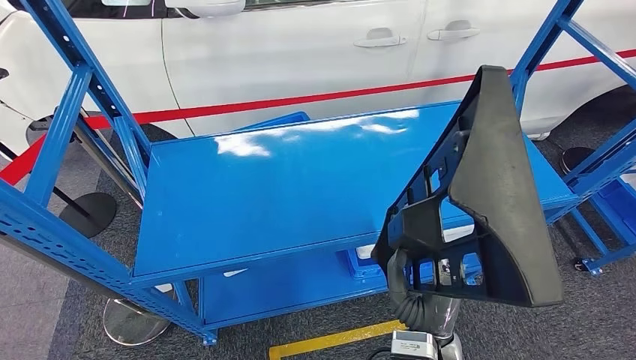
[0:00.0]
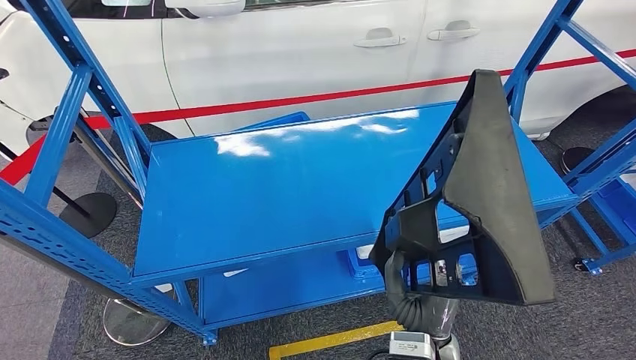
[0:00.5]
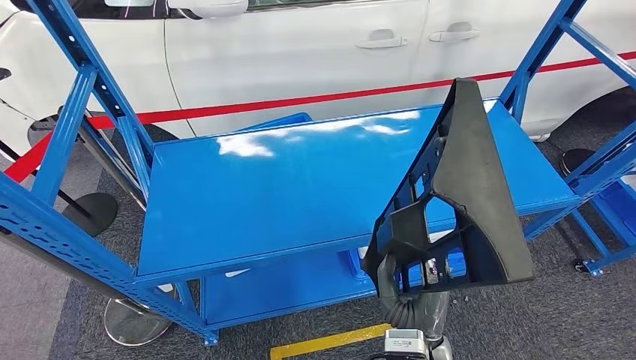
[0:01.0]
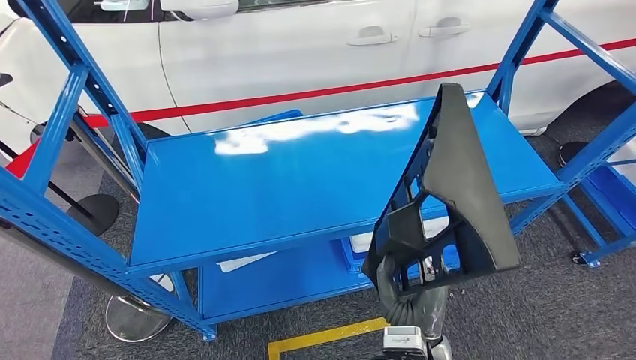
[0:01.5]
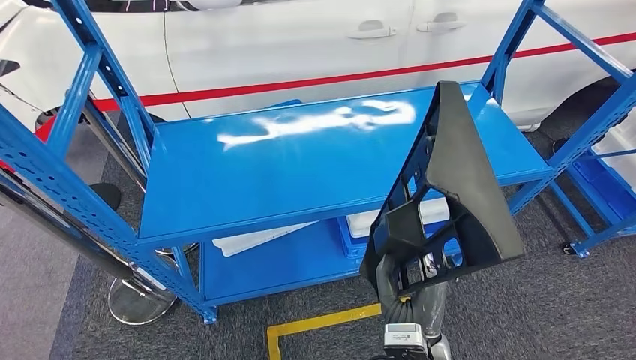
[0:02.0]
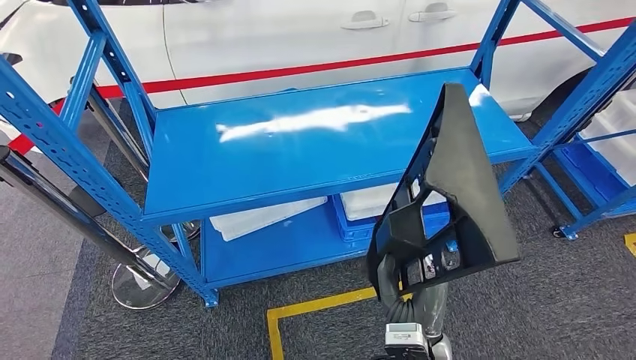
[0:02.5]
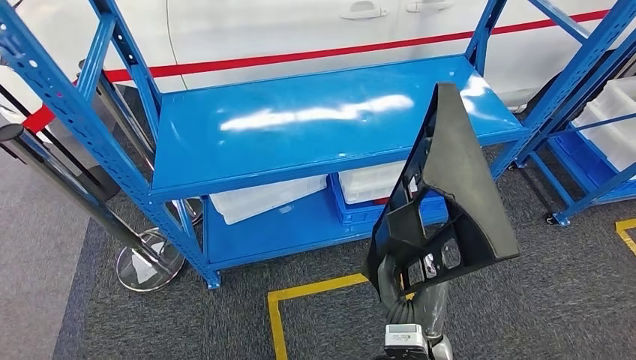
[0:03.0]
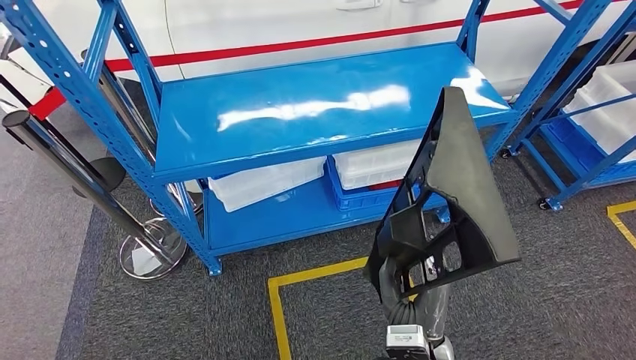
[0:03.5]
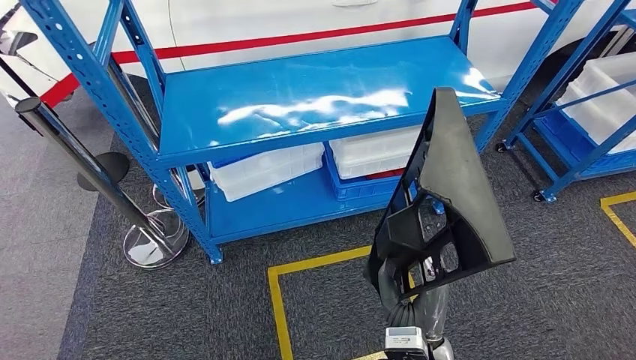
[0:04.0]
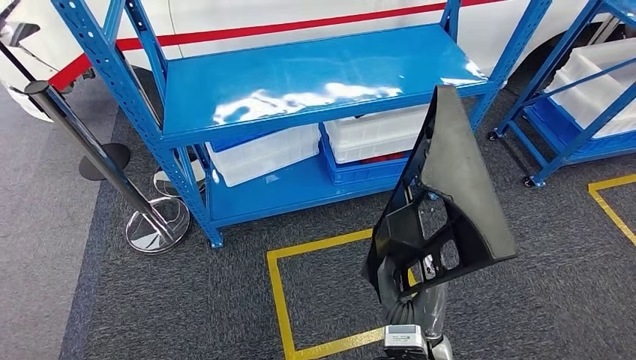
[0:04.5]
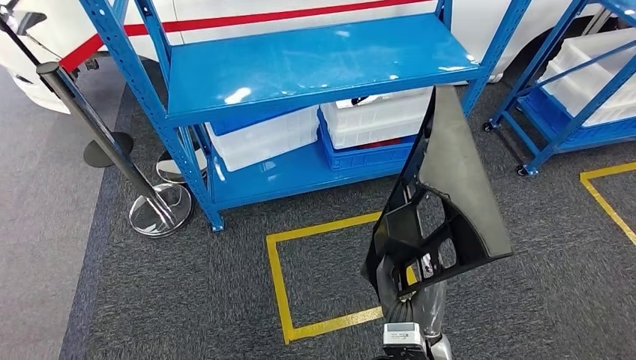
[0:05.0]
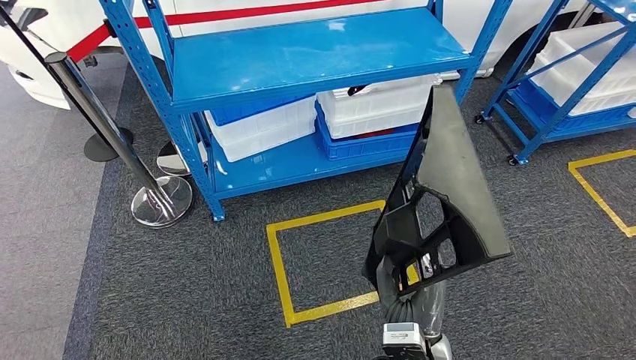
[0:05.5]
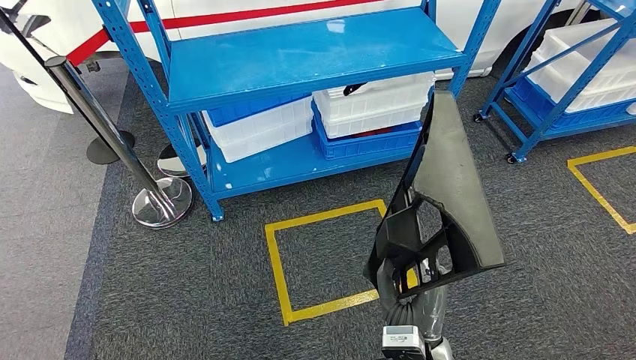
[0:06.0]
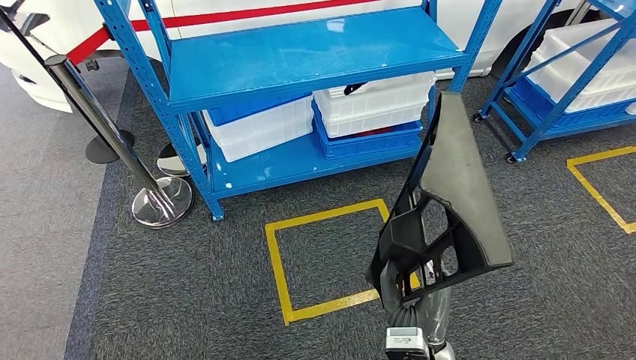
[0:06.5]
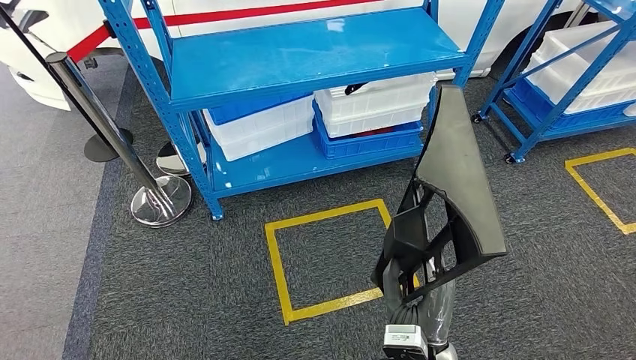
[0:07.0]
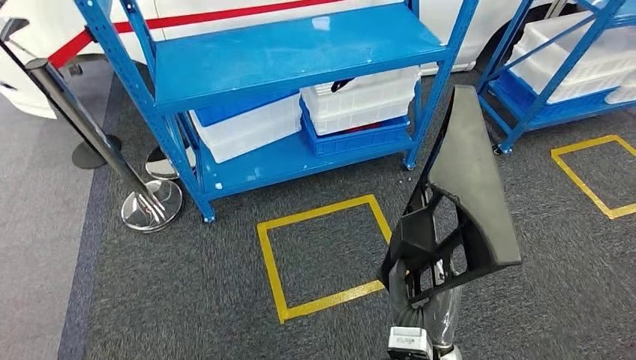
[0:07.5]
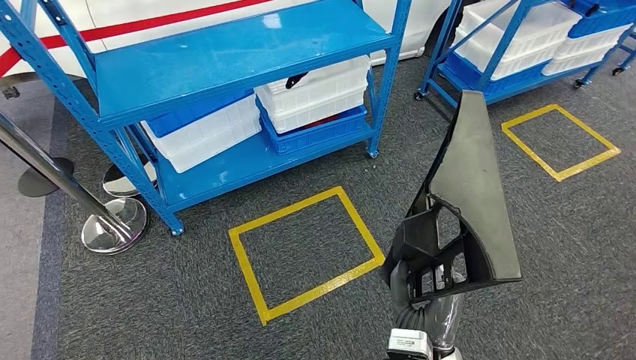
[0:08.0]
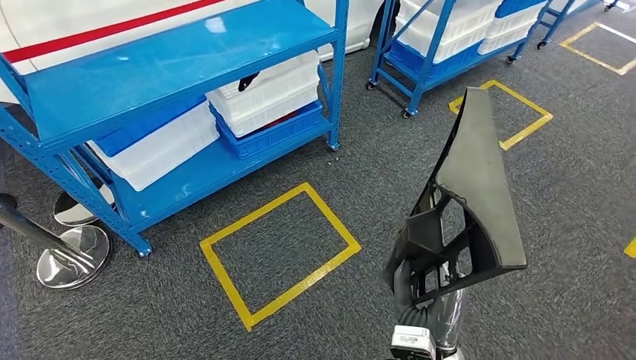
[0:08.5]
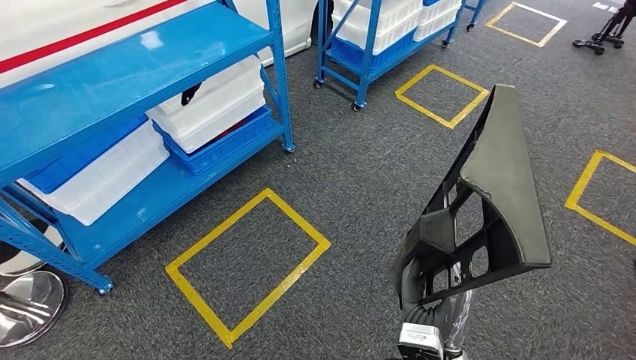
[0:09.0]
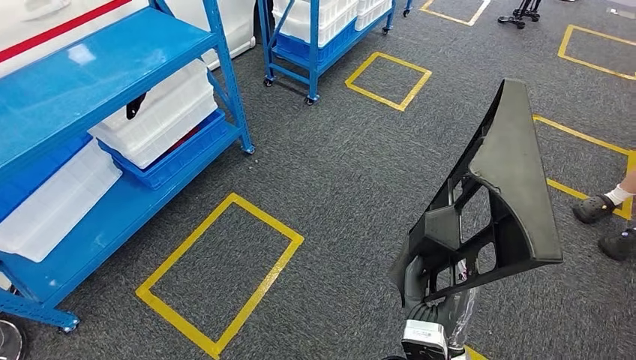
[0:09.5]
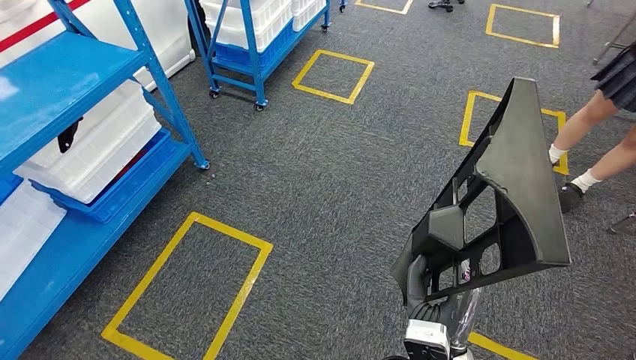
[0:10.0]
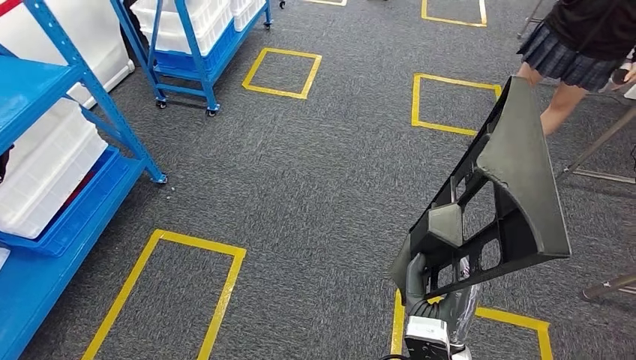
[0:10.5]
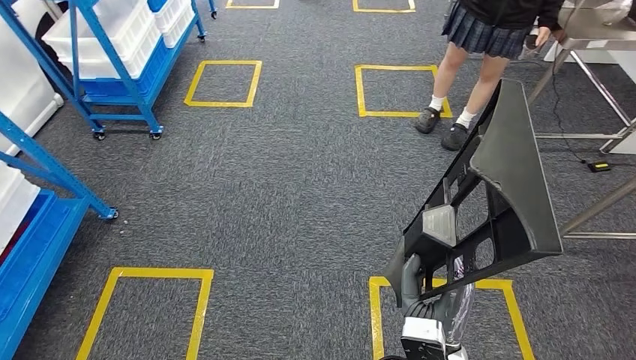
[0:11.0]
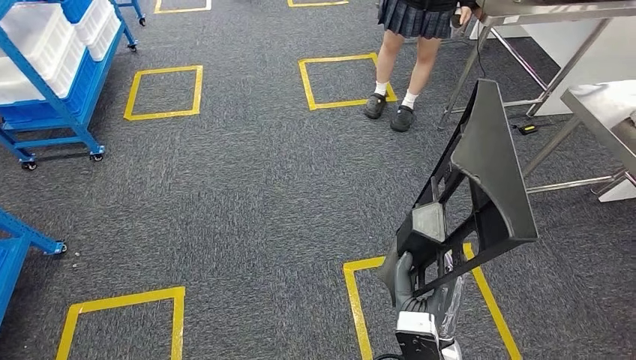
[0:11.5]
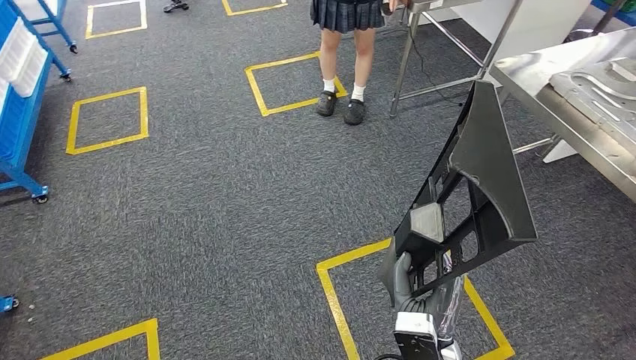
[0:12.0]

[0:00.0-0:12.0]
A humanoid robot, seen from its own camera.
Step, 0:00.0 to 0:03.5: Pick up the large material from the shelf.

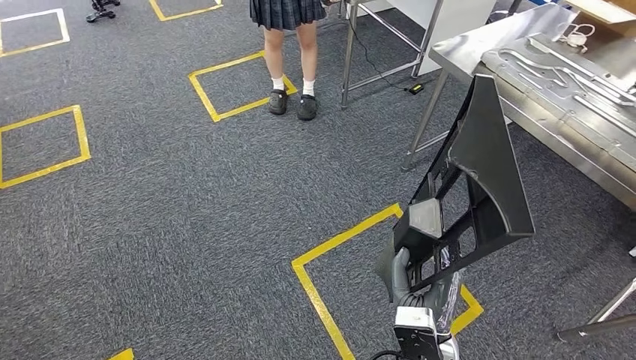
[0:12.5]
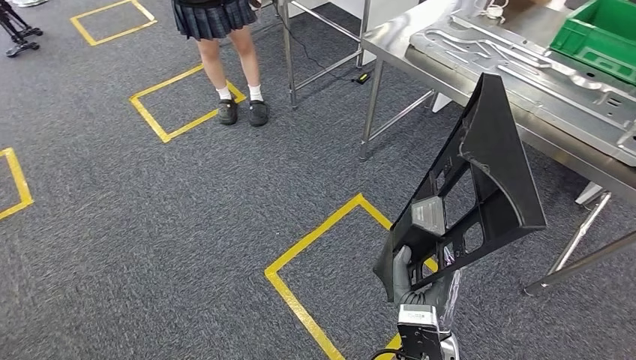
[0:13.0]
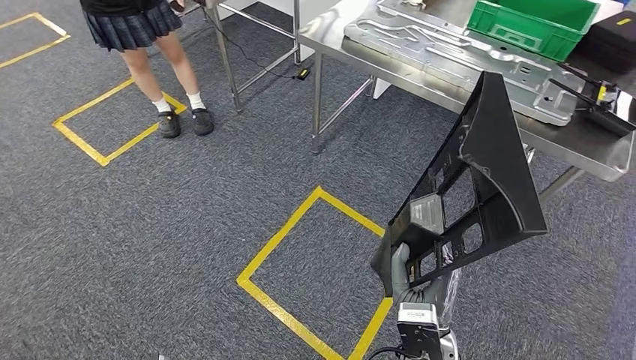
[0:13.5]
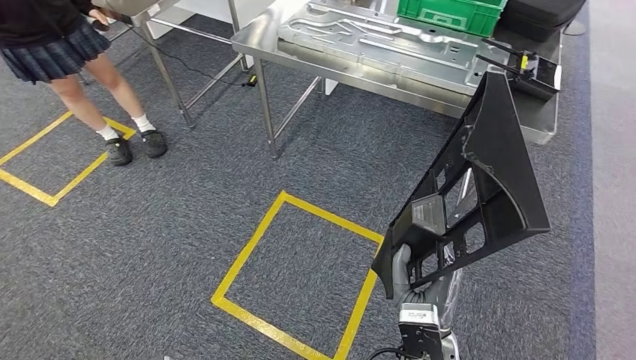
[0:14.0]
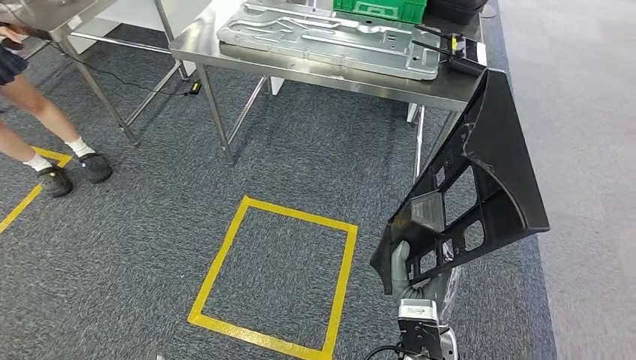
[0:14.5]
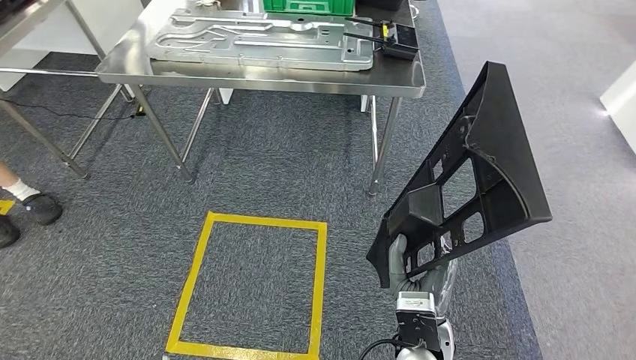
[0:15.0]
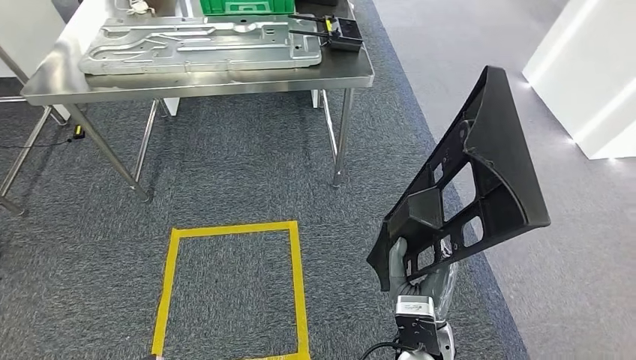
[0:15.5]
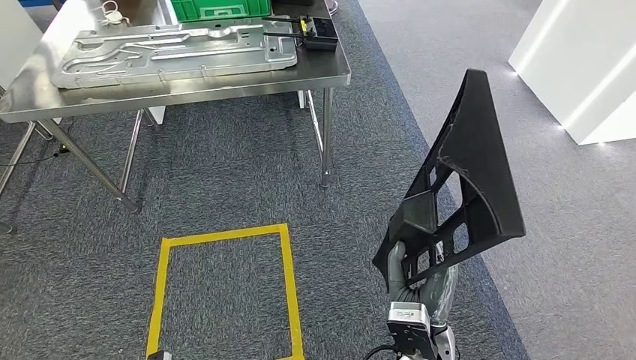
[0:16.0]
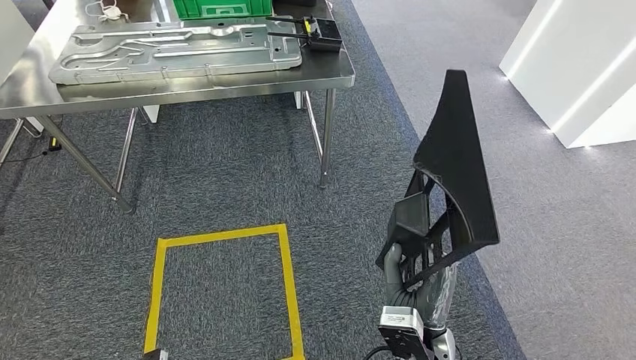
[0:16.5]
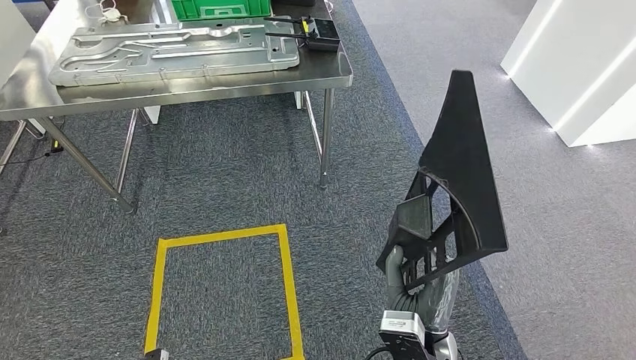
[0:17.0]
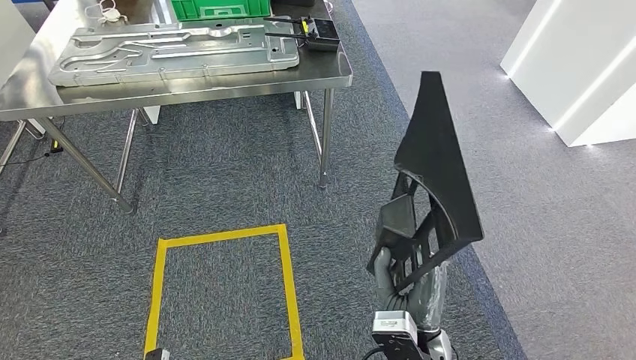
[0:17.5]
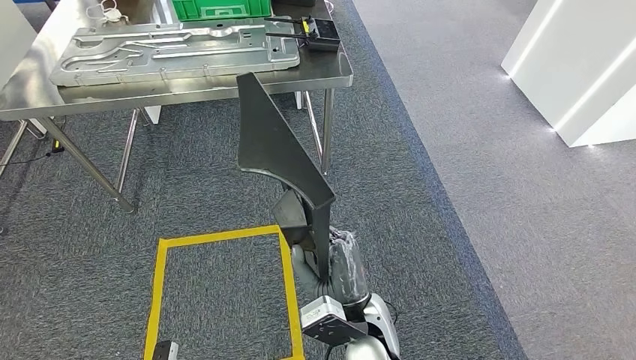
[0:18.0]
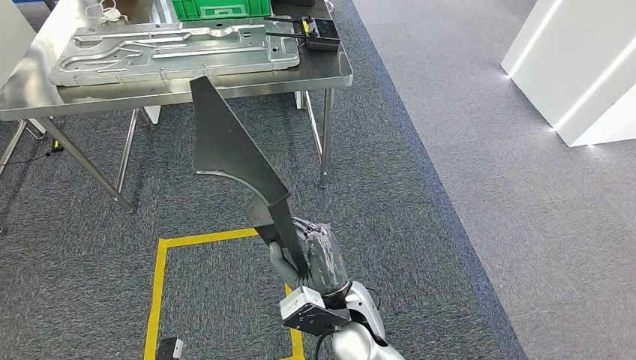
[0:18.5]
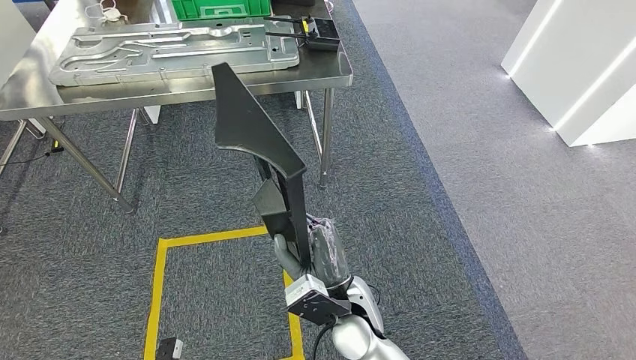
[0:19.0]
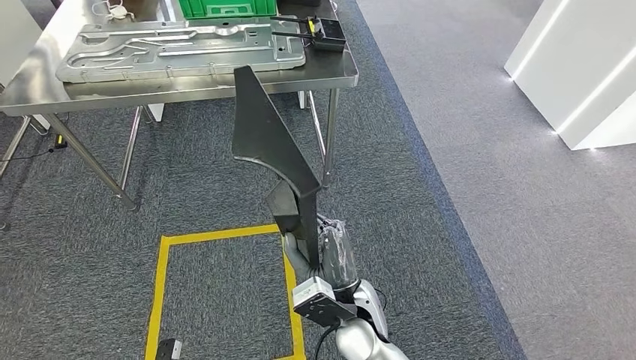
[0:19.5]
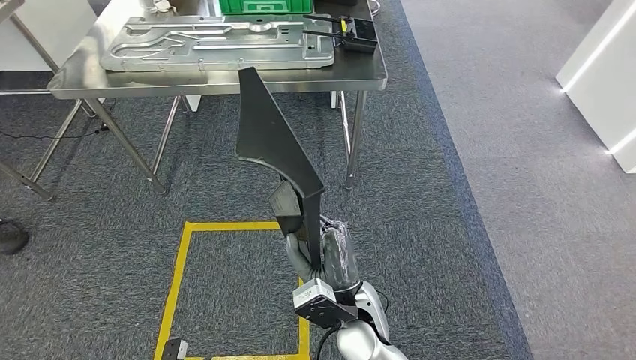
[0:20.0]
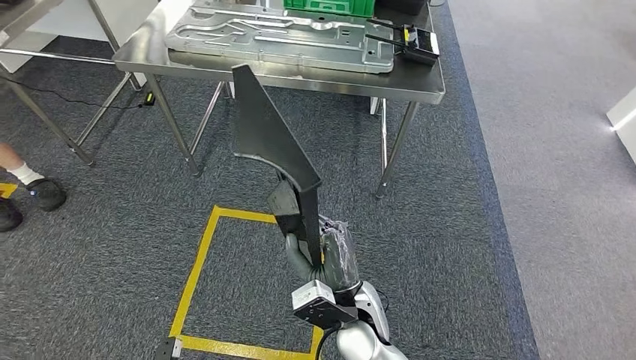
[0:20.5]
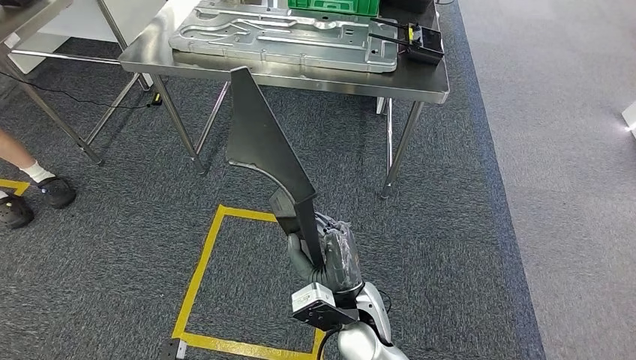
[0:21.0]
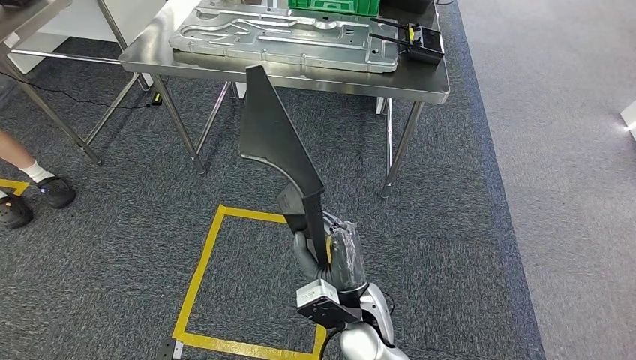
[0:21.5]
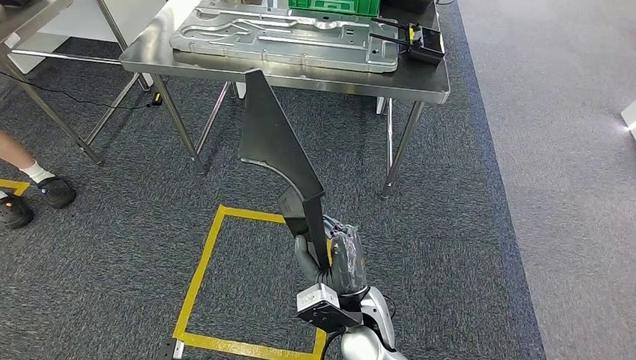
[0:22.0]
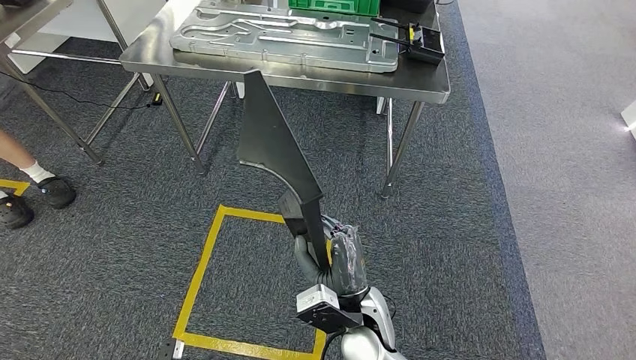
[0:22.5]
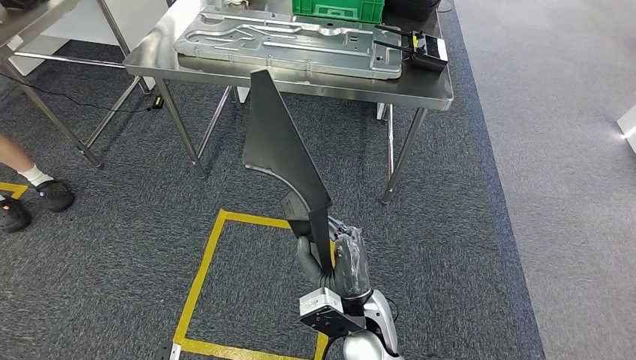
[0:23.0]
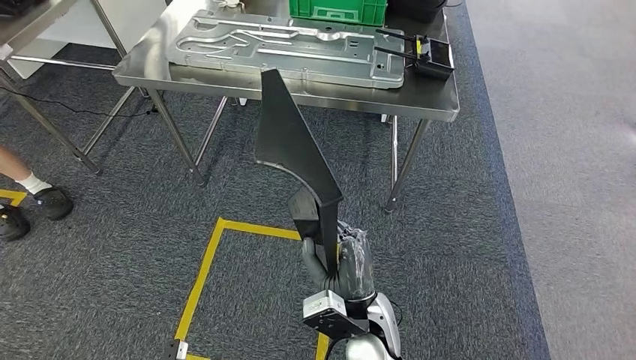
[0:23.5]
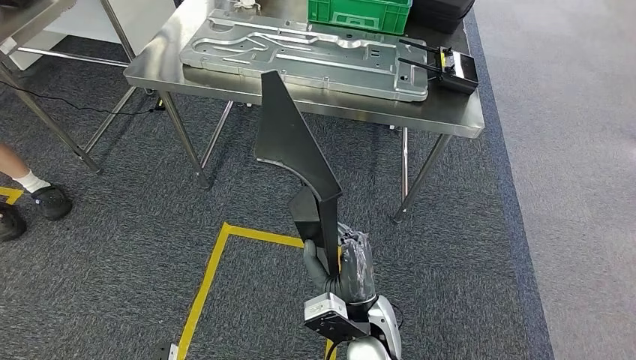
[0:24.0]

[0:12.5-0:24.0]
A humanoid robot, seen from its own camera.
0:16.5 to 0:18.5: The right hand shifts about 10 cm to the left and forward.
